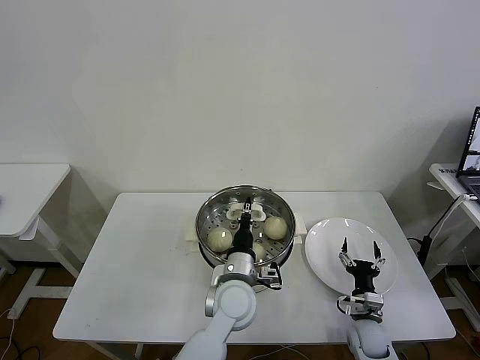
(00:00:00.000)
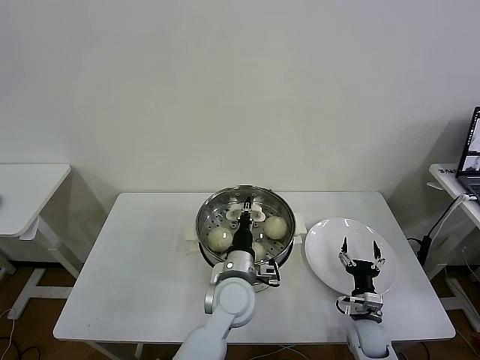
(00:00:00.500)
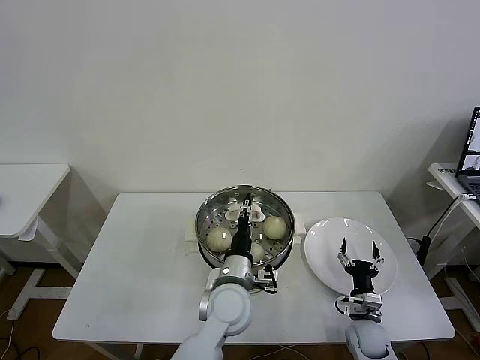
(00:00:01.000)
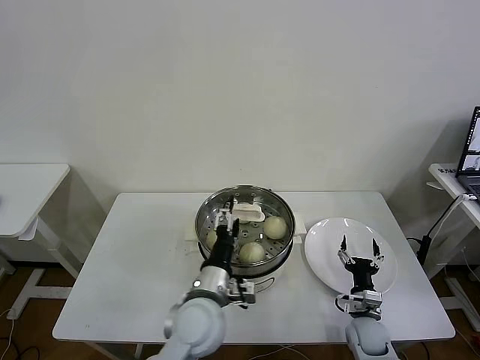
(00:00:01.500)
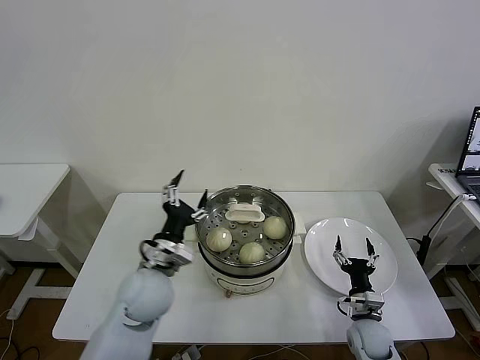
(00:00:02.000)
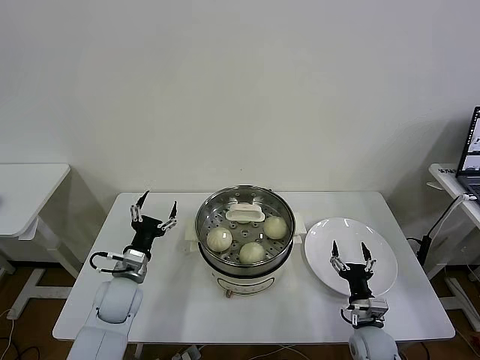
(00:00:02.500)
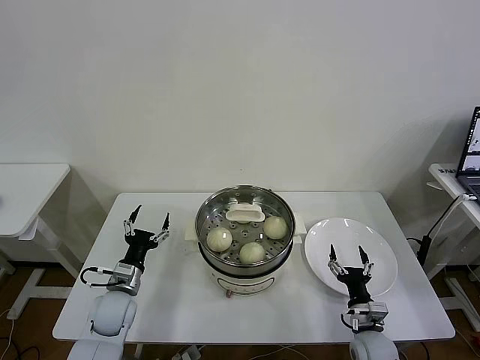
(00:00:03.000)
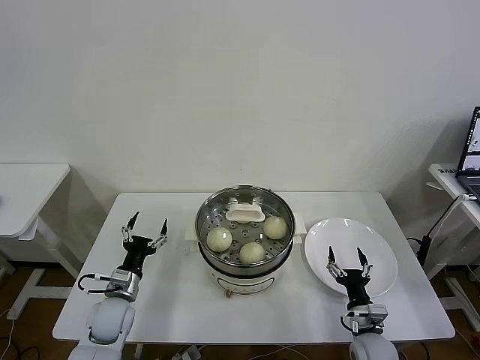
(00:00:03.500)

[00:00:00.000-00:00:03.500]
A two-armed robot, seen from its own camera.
Task of the whole recording: take steamed baozi put them in steamer then cover it.
00:00:00.000 to 00:00:02.000: The left gripper travels to the left by roughly 15 cm, and opens its fingers.
00:00:02.000 to 00:00:03.500: The left gripper is displaced downward and to the left by about 20 cm.
